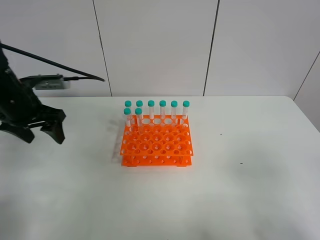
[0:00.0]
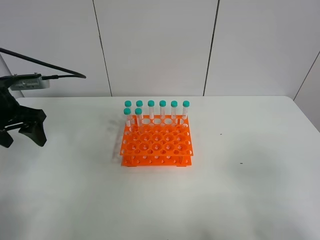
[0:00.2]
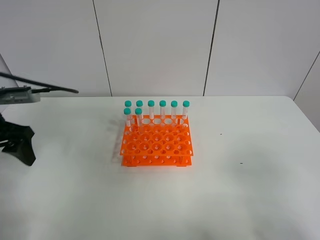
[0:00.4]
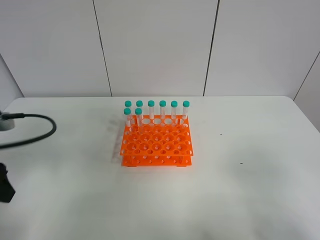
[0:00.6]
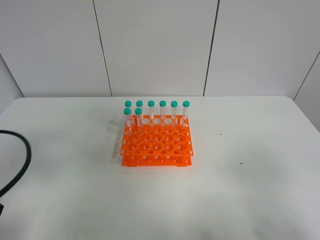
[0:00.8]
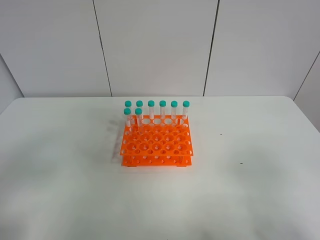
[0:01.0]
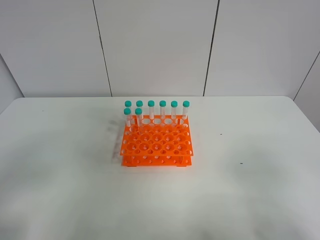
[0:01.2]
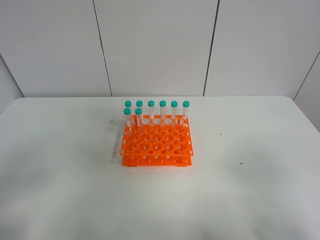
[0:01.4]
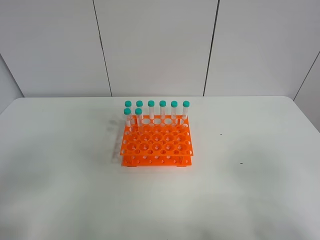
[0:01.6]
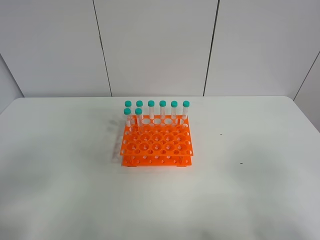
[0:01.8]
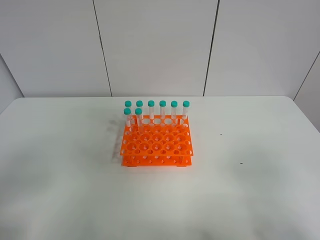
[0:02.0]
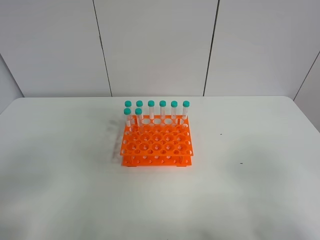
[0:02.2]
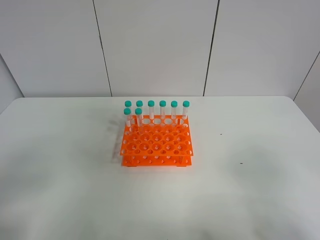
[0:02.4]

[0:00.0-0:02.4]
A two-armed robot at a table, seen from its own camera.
Task of the whole recording: Put the test tube on the table back onto the test tube rack.
0:00.0 to 0:01.2: The left gripper moves backward, roughly 30 cm.
